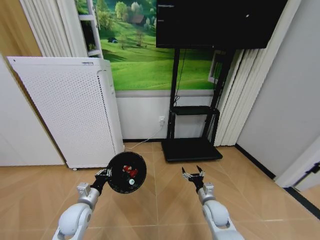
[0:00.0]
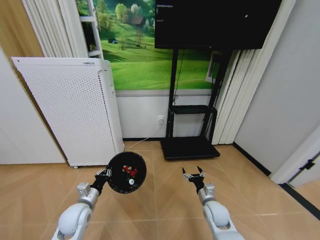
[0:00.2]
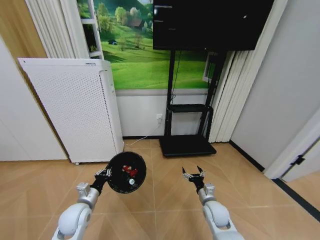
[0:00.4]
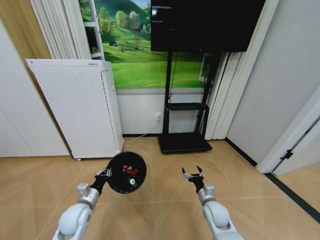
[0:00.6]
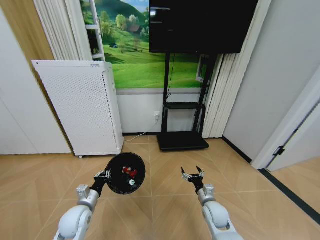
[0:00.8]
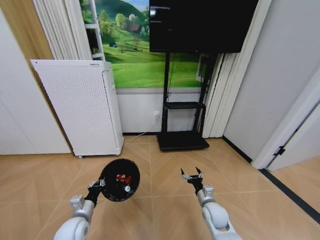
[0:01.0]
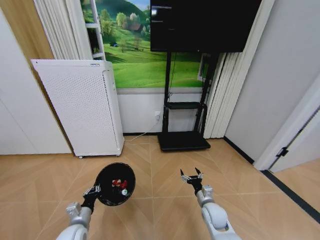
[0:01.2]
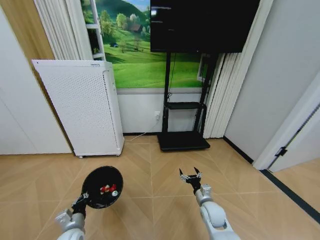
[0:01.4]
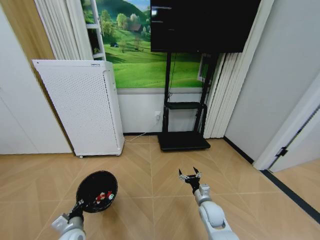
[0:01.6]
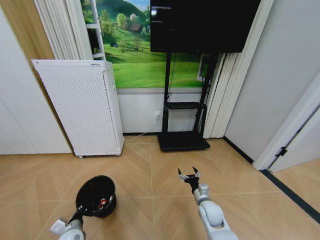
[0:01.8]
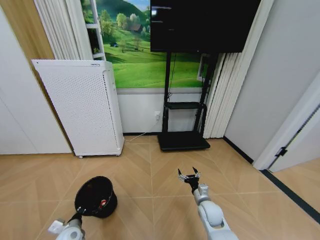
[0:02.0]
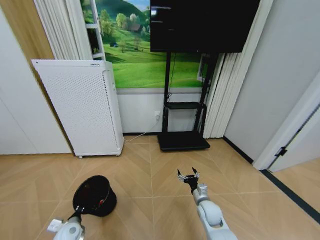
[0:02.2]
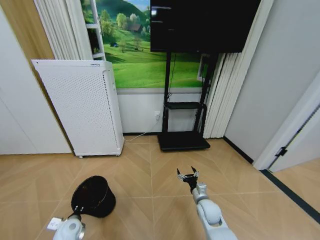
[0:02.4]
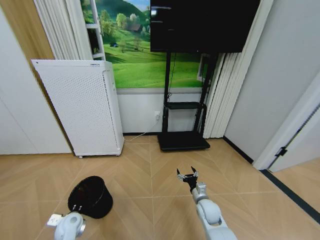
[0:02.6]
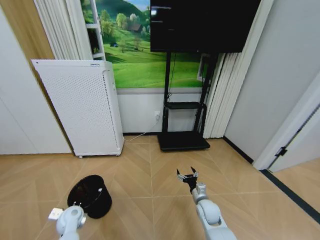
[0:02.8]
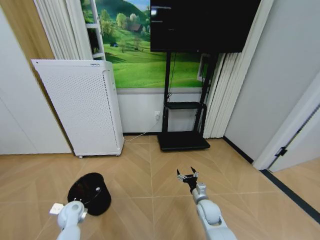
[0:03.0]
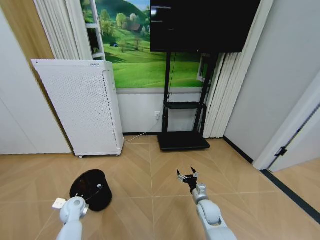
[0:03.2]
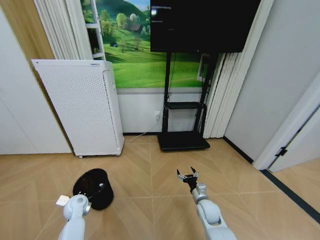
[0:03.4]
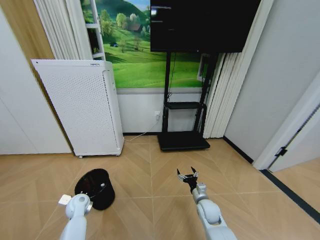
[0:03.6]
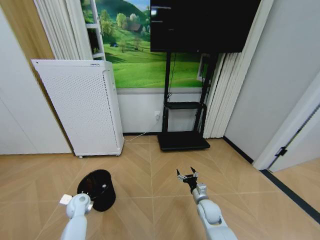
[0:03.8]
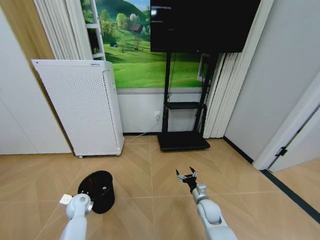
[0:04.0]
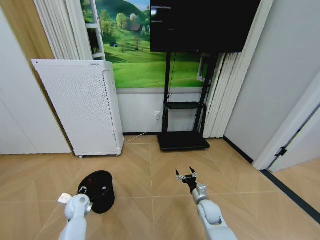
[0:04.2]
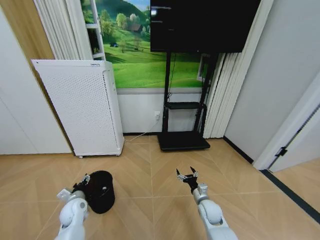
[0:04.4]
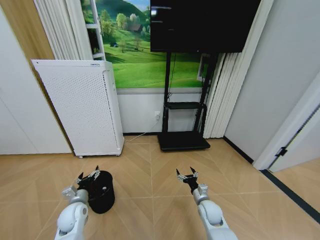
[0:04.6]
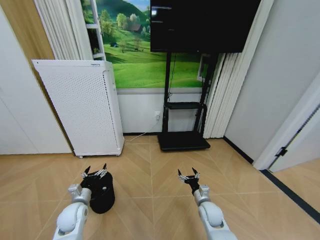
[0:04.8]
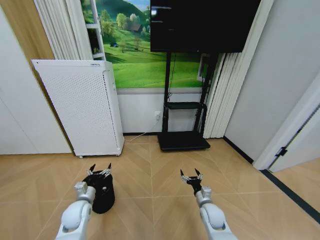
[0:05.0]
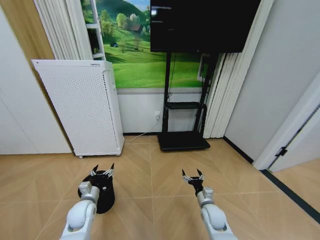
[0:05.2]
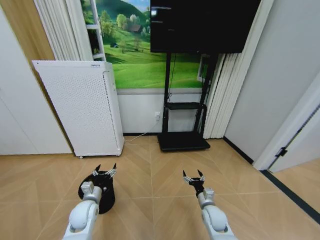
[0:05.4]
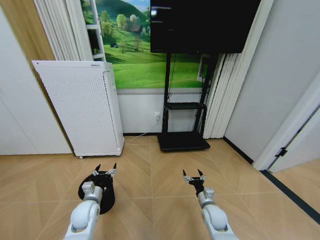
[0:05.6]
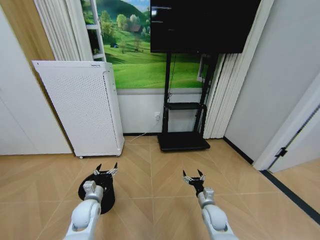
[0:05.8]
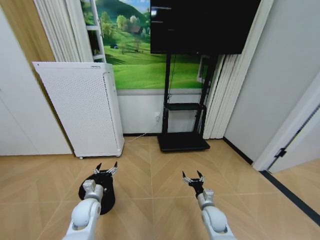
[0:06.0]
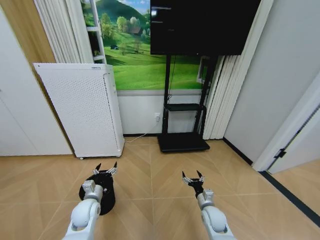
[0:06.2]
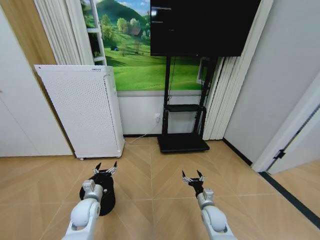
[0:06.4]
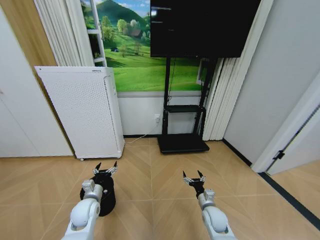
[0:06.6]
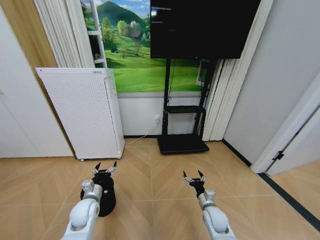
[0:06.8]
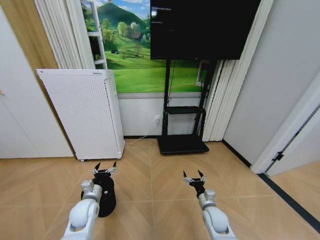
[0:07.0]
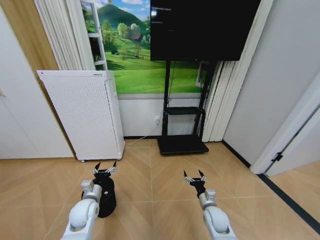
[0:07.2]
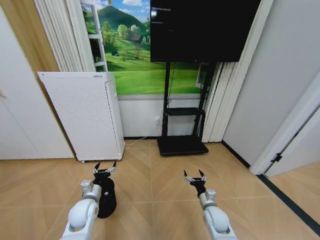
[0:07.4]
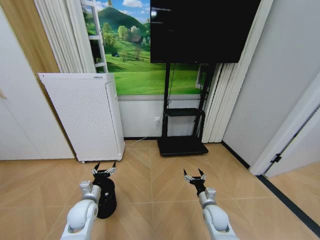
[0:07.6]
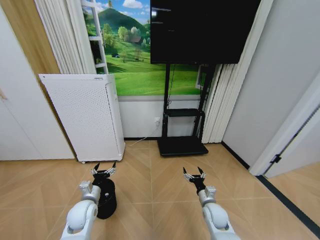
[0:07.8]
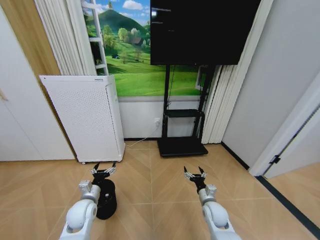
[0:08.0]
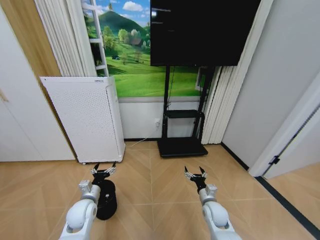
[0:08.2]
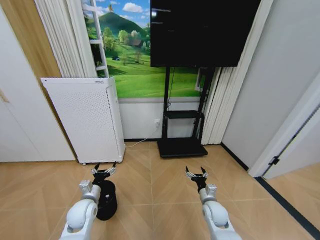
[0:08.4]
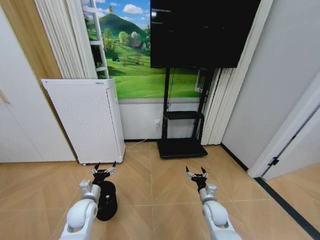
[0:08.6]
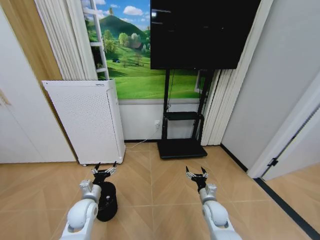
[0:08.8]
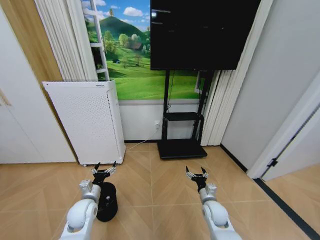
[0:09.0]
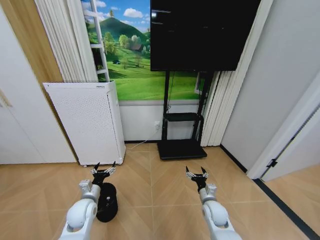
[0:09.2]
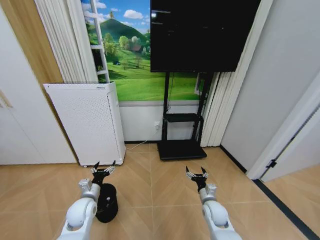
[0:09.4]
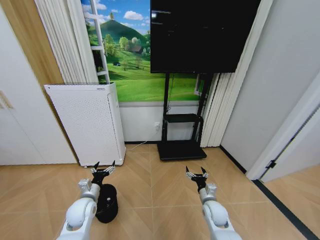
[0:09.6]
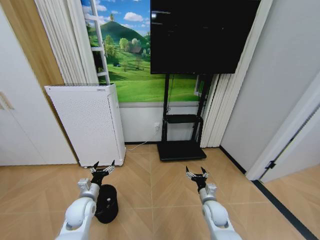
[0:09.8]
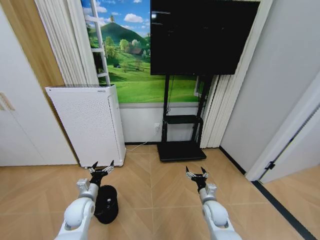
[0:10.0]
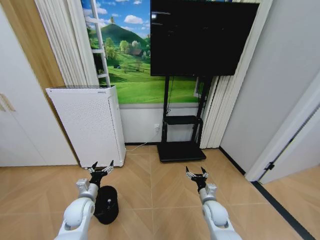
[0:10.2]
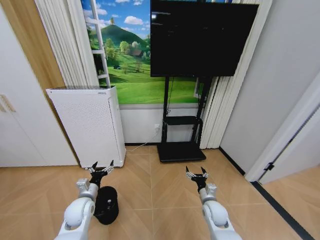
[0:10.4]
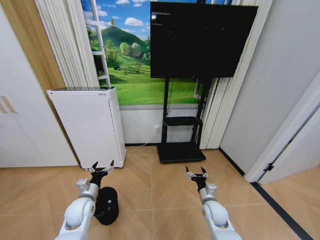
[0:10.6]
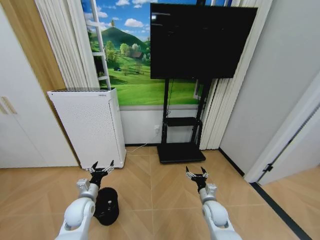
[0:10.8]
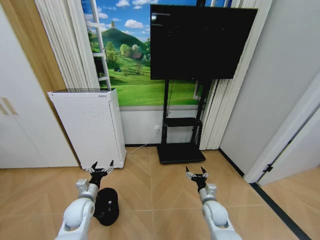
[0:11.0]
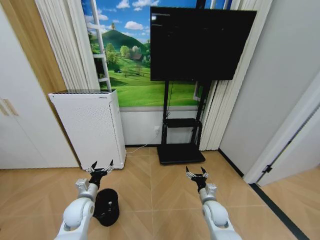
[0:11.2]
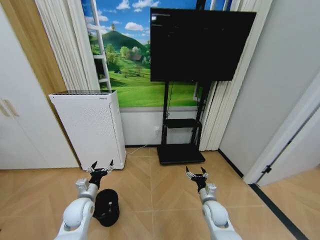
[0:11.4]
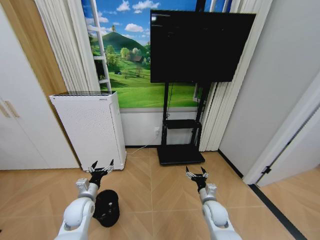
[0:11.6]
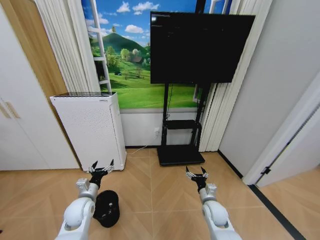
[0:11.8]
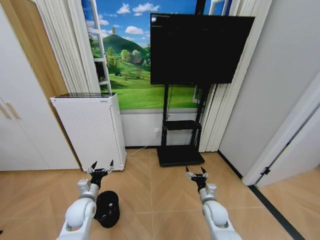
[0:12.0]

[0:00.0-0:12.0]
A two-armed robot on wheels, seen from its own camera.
Task of the whole recording: Pick up the trash bin and place the garbage on the floor into it.
0:00.0 to 0:01.6: The left gripper shifts about 10 cm downward and backward.
0:01.6 to 0:03.0: The left gripper heads forward and to the left, covering about 10 cm.
0:03.0 to 0:04.4: The left gripper opens its fingers.
0:04.4 to 0:06.0: The left gripper heads to the right, covering some 10 cm.
0:06.0 to 0:07.6: Both grippers stay put.
0:07.6 to 0:10.4: There are only small adjustments of the grippers.
0:10.4 to 0:12.0: Neither gripper changes place.

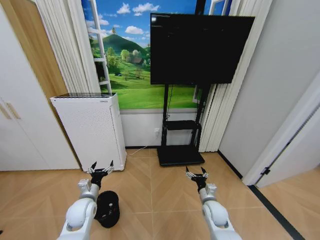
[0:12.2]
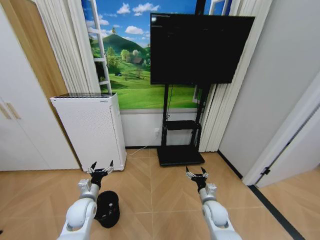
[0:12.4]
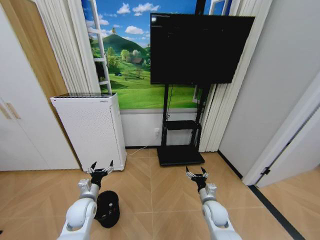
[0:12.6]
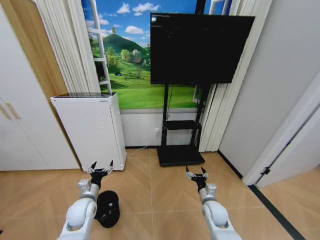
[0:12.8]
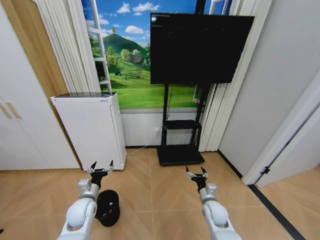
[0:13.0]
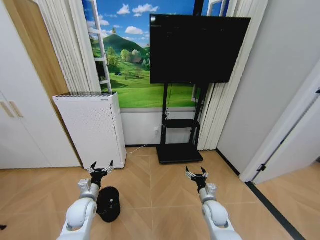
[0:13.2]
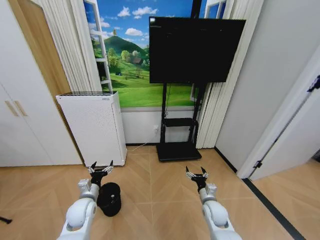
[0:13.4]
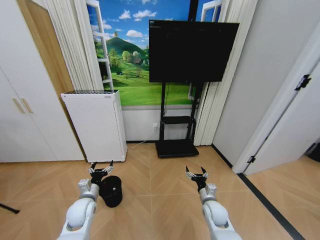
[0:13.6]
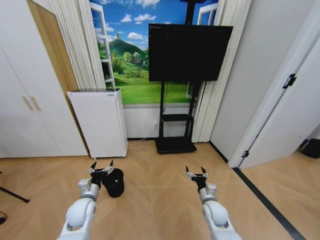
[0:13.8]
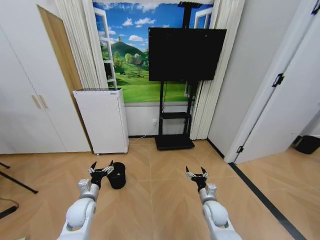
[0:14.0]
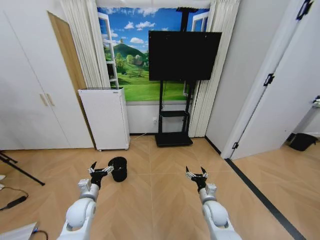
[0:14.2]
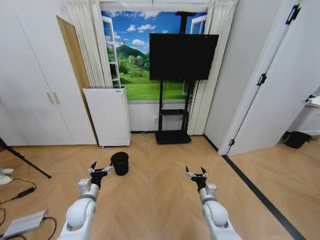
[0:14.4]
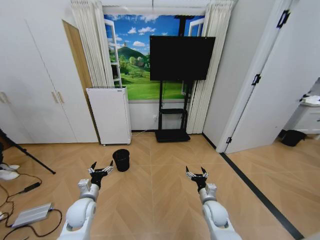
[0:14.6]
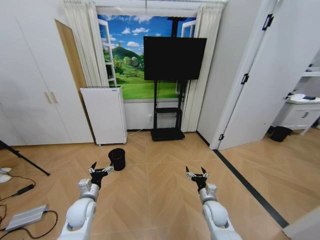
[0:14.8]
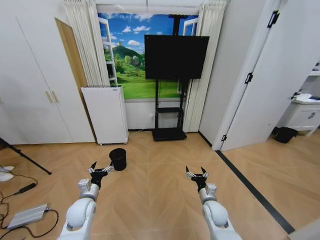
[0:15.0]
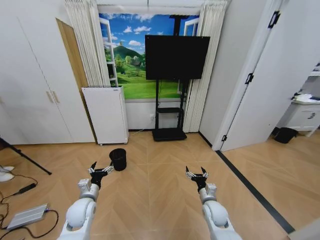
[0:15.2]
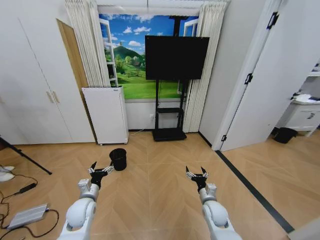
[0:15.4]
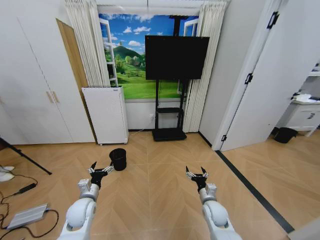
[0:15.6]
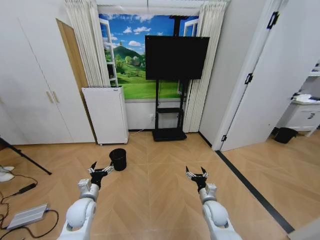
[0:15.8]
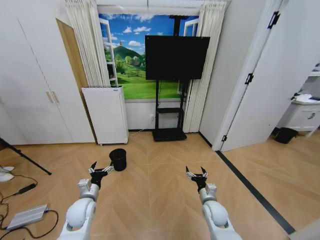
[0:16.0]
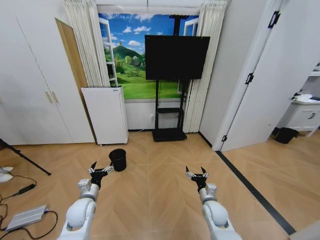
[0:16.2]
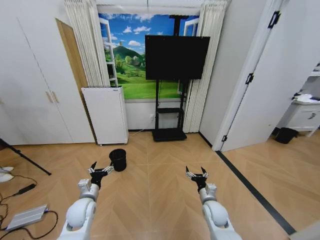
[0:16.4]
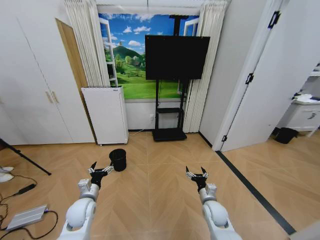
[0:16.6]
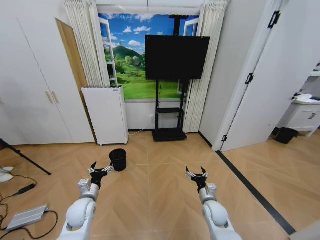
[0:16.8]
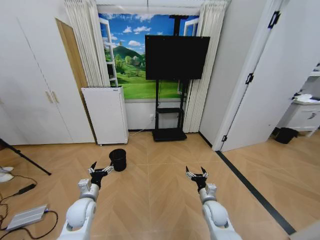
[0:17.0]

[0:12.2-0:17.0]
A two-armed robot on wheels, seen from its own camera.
Task of the whole recording: Pick up the trash bin and place the garbage on the floor into it.
0:15.4 to 0:17.0: Neither gripper changes place.
